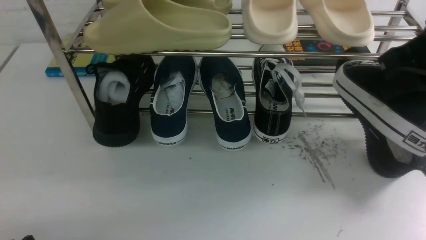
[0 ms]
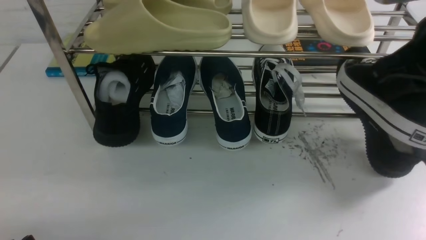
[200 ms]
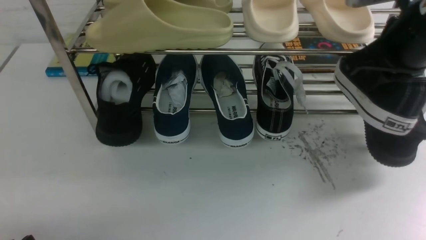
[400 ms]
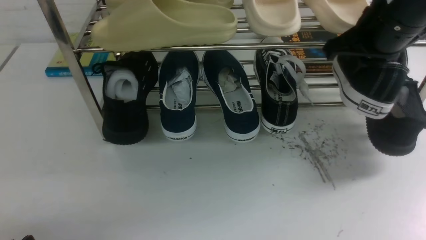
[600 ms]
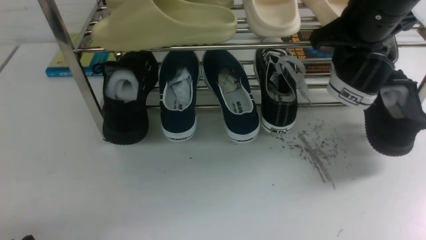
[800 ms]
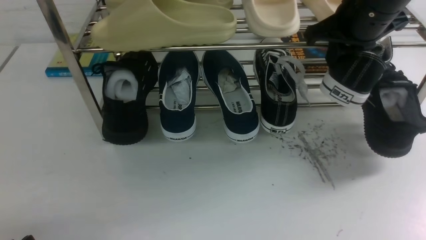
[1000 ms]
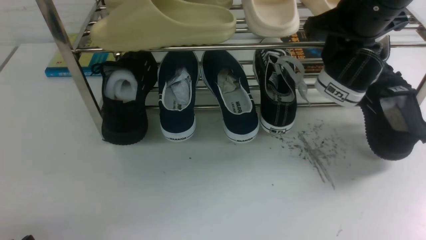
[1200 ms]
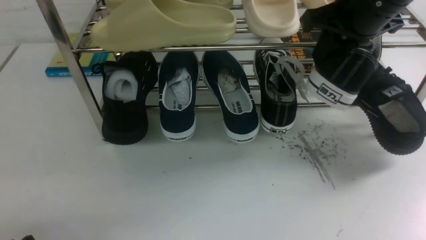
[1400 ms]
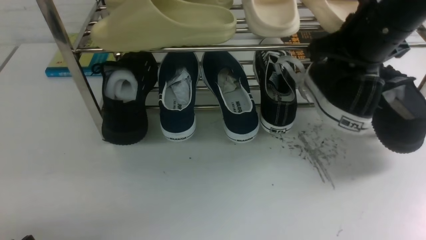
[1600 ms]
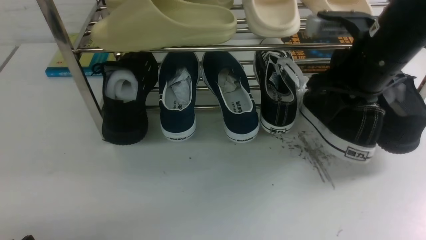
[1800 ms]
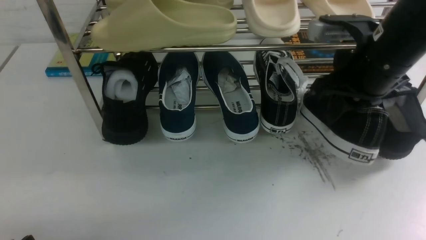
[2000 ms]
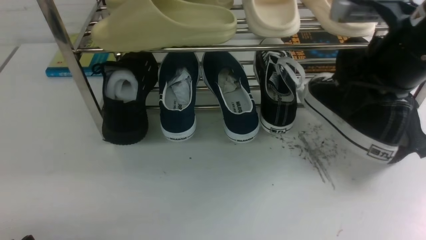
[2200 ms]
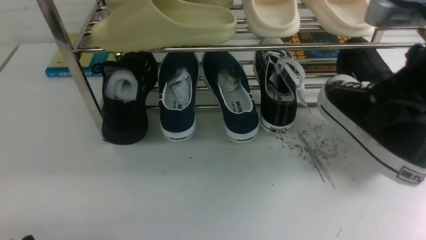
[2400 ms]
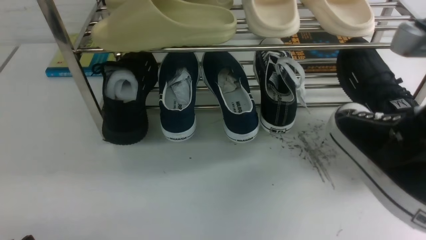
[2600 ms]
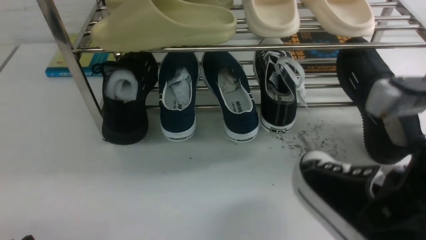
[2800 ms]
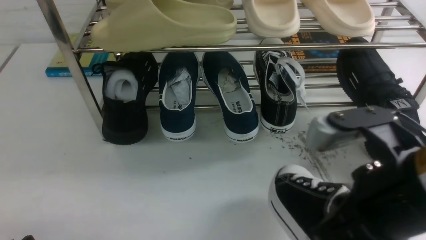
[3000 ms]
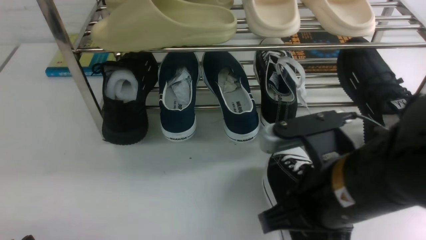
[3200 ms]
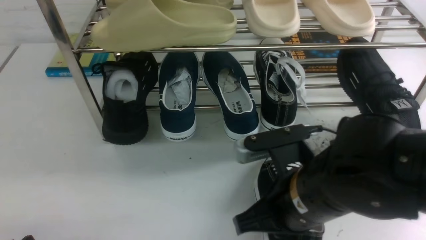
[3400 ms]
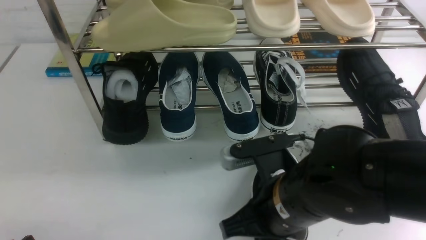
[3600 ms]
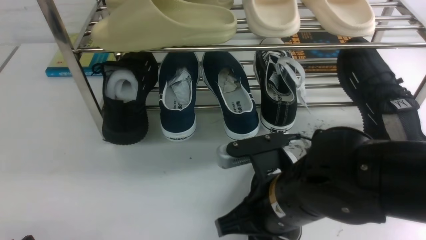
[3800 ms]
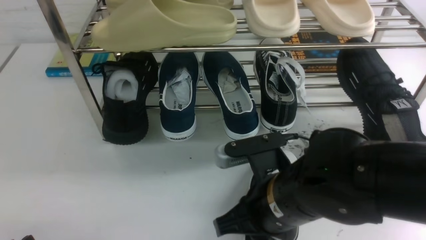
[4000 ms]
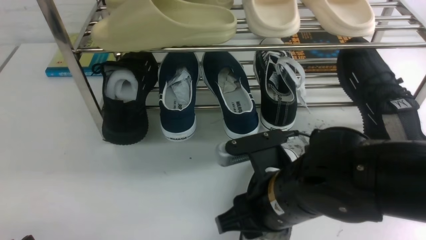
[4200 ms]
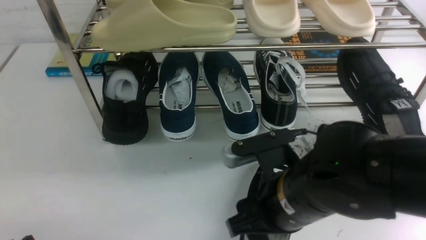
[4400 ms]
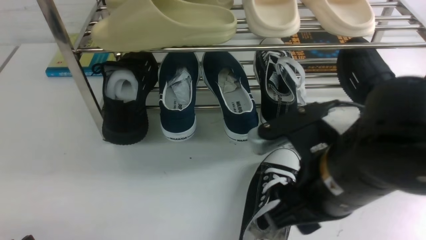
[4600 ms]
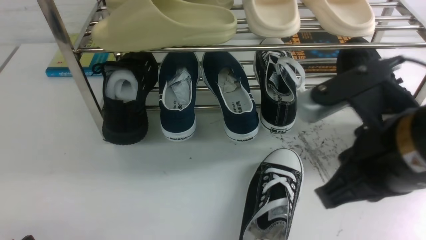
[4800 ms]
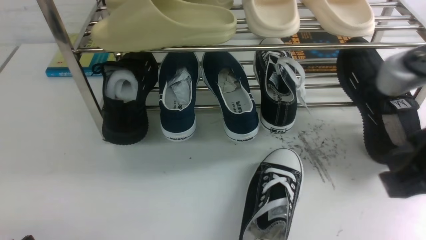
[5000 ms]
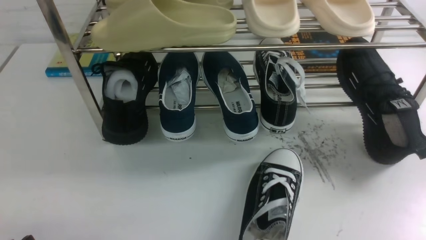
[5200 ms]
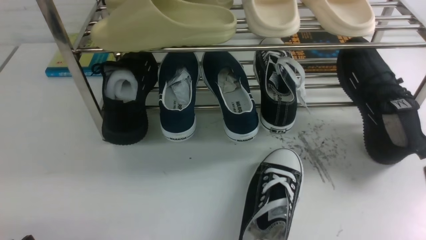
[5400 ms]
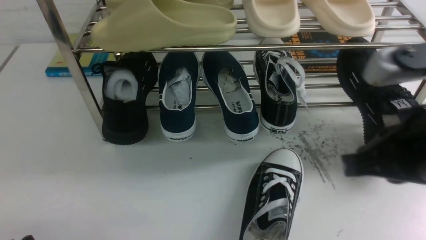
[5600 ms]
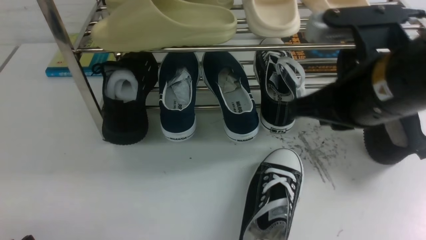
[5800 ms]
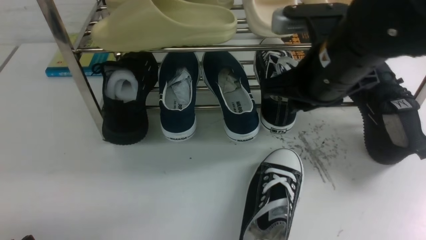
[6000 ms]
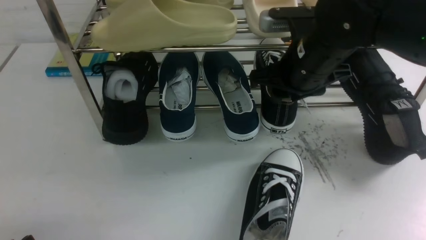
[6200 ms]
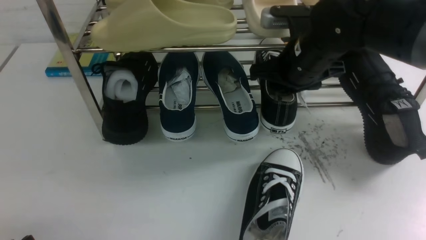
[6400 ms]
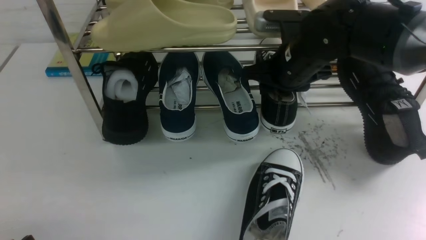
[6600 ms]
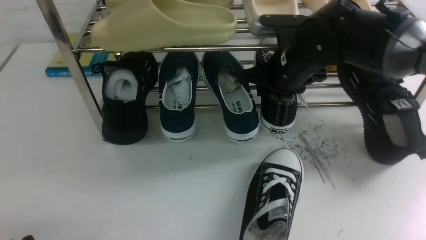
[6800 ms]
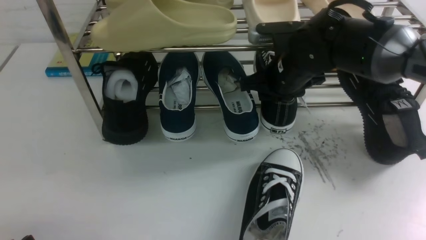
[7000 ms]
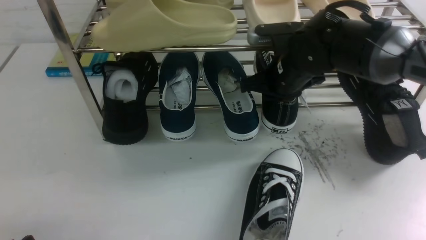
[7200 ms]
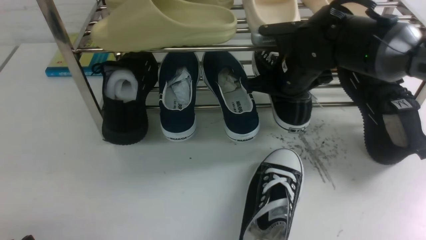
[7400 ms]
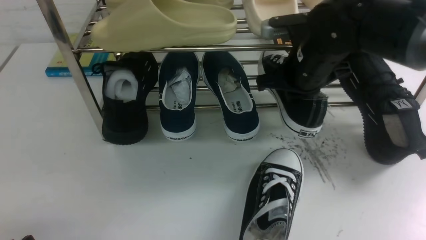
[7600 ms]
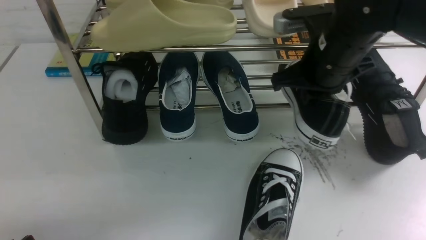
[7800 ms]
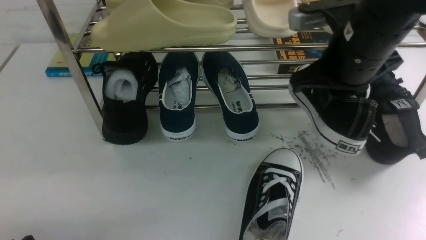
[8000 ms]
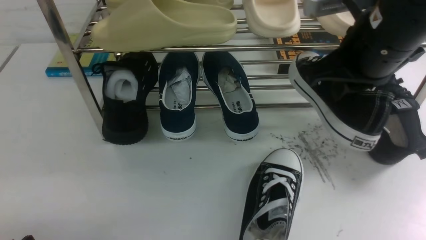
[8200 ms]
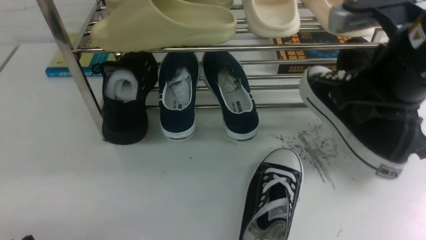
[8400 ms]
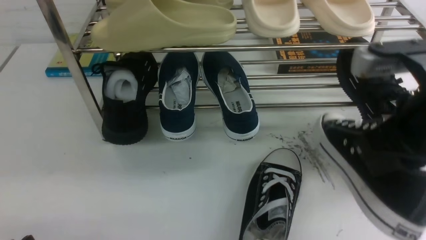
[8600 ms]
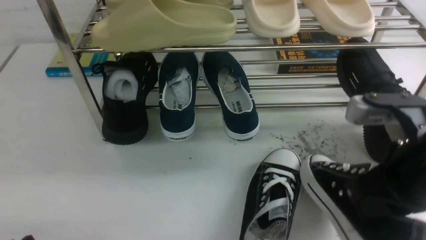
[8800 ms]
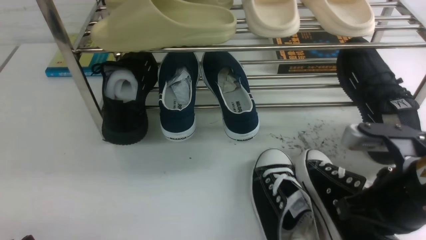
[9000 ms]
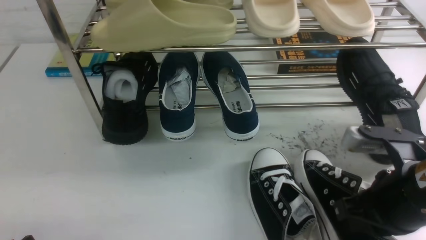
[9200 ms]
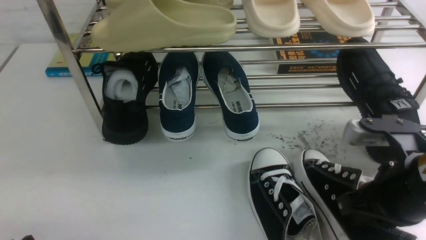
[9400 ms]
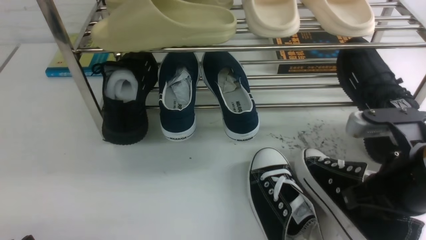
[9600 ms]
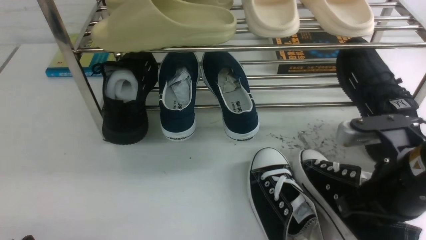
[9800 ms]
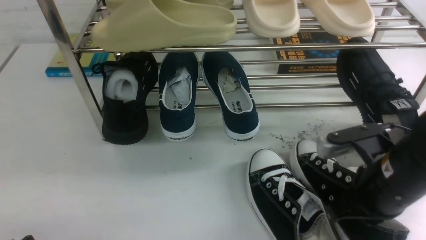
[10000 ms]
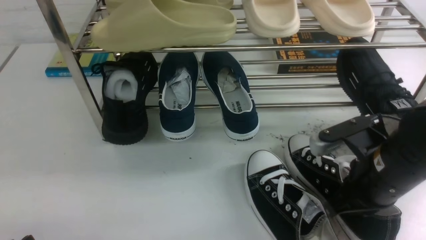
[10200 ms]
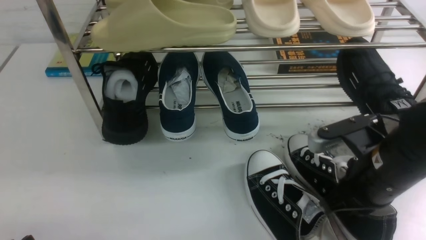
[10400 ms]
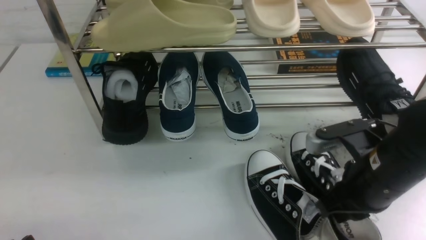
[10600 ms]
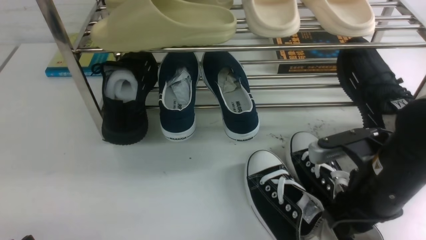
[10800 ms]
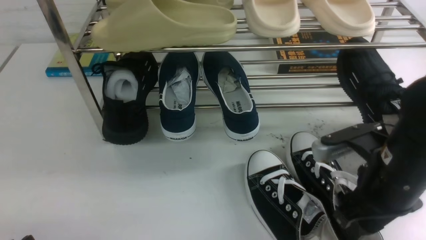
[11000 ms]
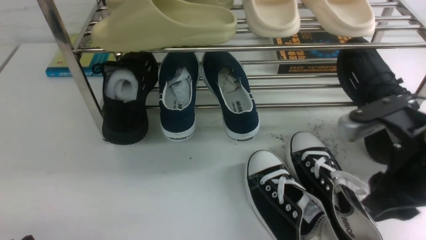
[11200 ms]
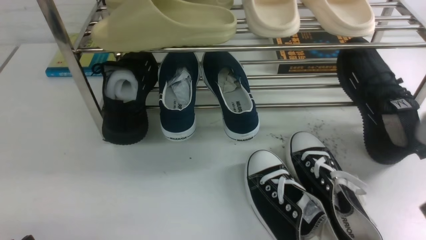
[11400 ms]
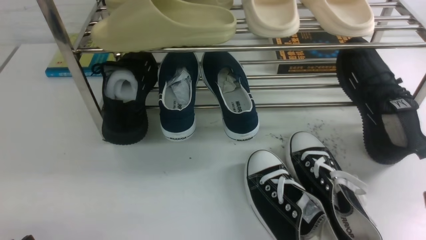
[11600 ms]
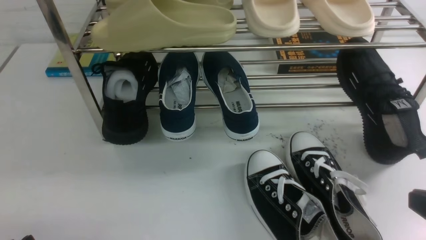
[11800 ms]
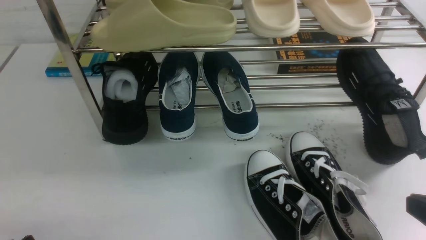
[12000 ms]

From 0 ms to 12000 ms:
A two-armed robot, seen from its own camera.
Step, from 0 ms to 4400 ms: use the right arm to take out the clamped shoe from the shoe rack and put it down.
Step, from 4600 ms to 7600 ms: use the right arm to clamp a shoe on the right side of the shoe rack.
Step, from 8000 ms to 10800 ms: use the right arm to take out the clamped shoe from the shoe rack and put it down.
From 0 ms to 1600 ms: The right gripper goes about 10 cm forward.
From 1600 ms to 3000 ms: The right gripper shifts some 20 cm backward.
From 3000 ms to 4400 ms: The right gripper goes some 10 cm to the left and downward, and opens.
From 4400 ms to 6000 ms: The right gripper shifts about 15 cm forward and upward, and closes.
From 6000 ms to 7600 ms: The right gripper moves forward, about 5 cm, and closes up.
From 7600 ms to 9000 ms: The right gripper shifts about 20 cm backward.
From 9000 ms to 10400 ms: The right gripper changes place by roughly 5 cm.
From 10400 ms to 12000 ms: The right gripper moves backward and to the right, some 15 cm, and opens, then closes again.

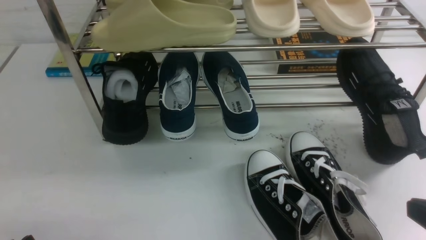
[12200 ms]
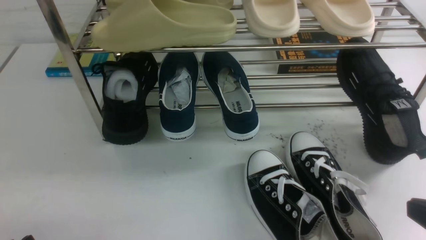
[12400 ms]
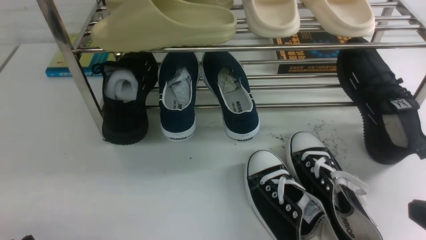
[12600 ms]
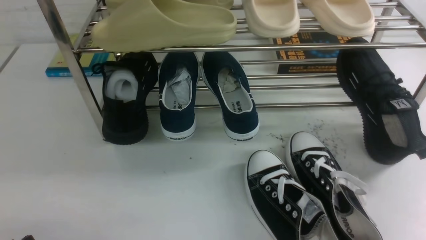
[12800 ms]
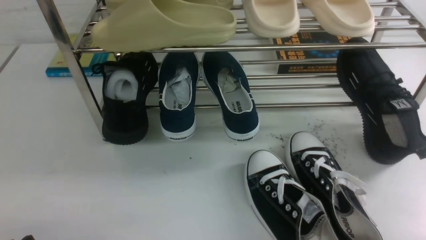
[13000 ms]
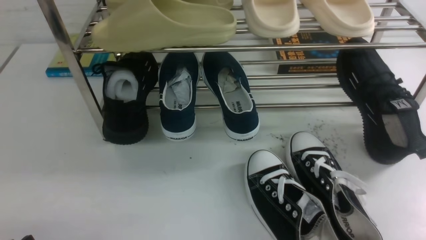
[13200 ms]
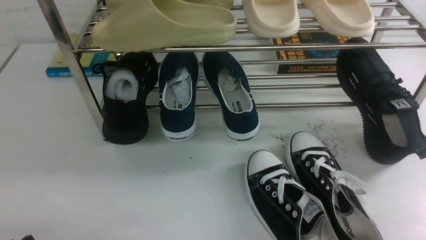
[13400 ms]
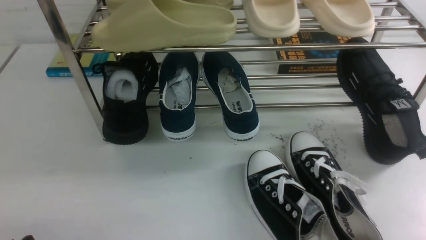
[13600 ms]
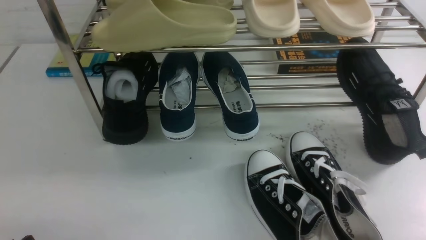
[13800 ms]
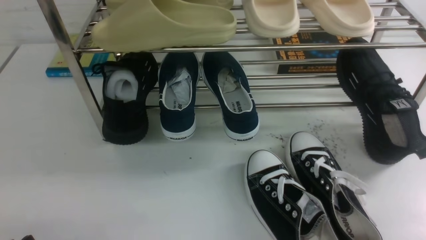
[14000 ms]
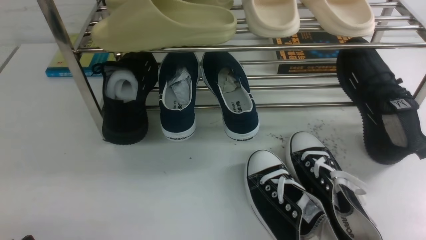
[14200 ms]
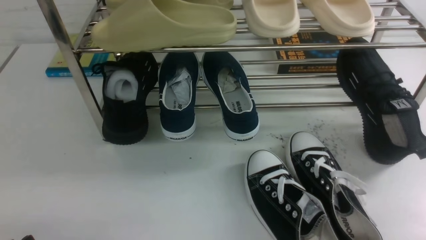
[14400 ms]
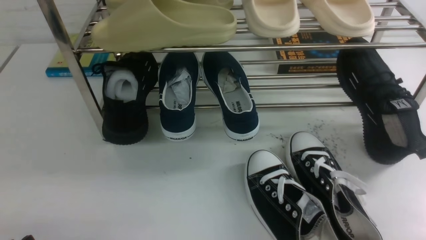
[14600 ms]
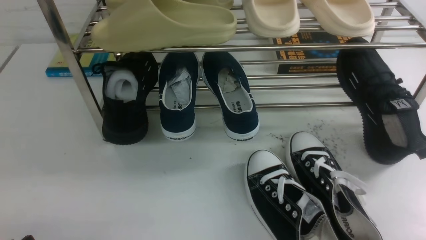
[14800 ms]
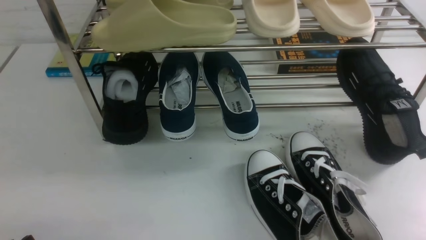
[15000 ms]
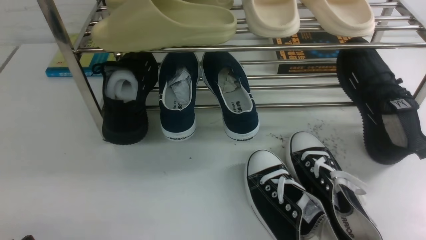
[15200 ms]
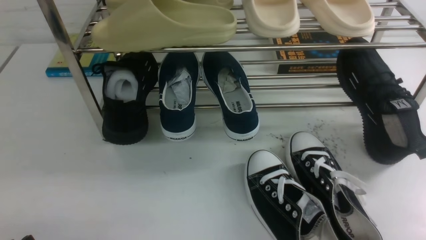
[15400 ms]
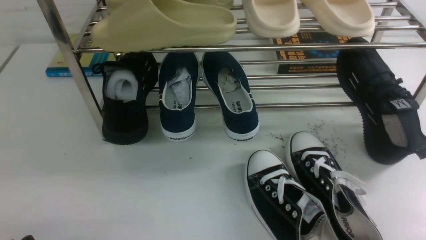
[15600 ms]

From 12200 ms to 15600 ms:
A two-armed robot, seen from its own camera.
From 13800 ms to 15600 ms: The two grippers keep their place.
